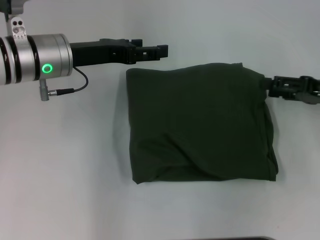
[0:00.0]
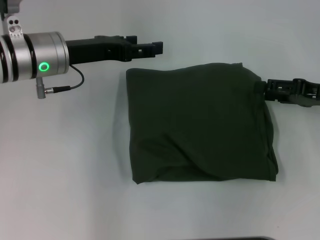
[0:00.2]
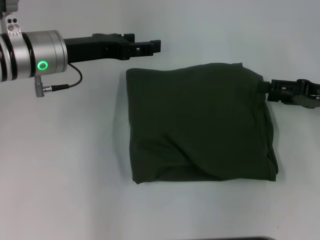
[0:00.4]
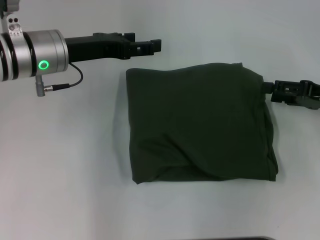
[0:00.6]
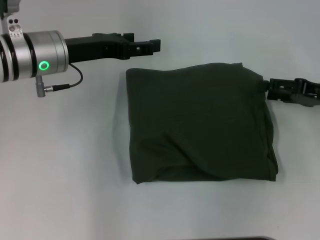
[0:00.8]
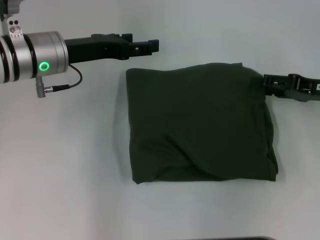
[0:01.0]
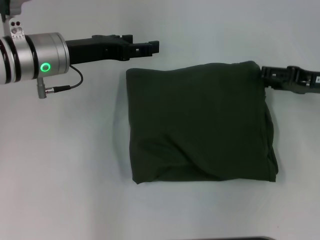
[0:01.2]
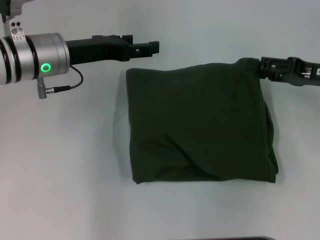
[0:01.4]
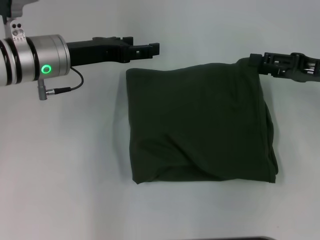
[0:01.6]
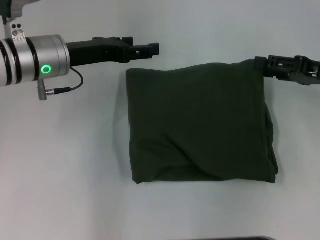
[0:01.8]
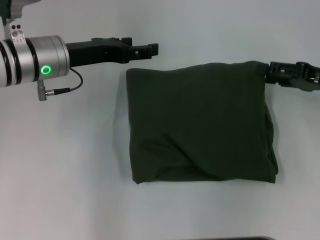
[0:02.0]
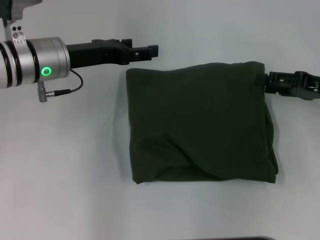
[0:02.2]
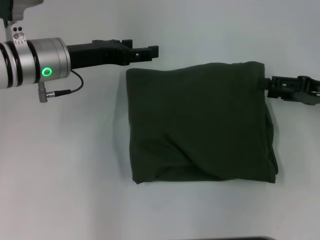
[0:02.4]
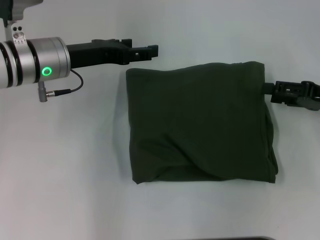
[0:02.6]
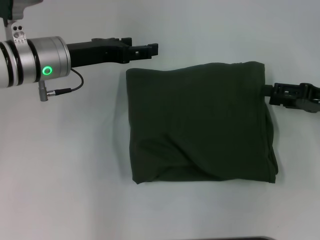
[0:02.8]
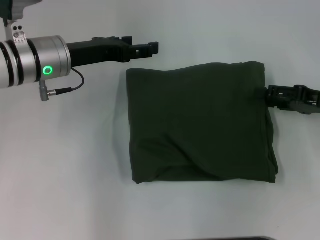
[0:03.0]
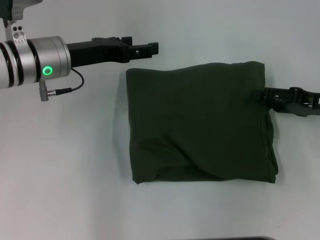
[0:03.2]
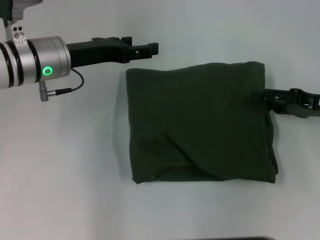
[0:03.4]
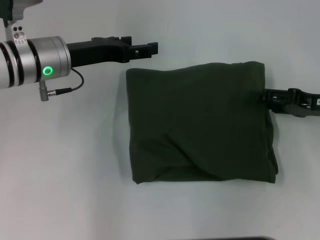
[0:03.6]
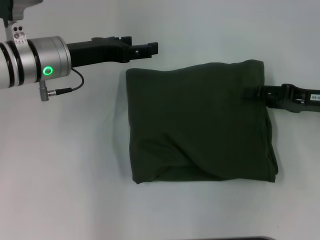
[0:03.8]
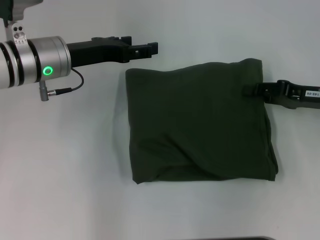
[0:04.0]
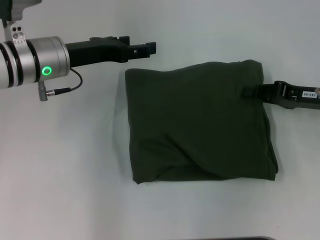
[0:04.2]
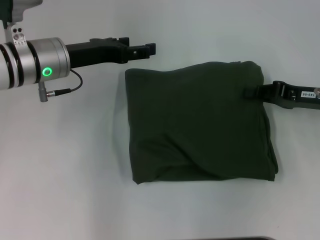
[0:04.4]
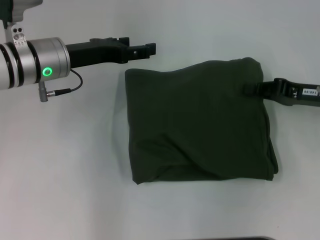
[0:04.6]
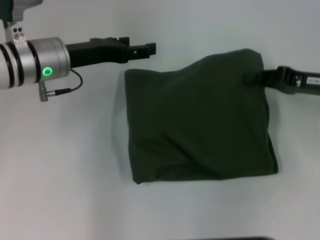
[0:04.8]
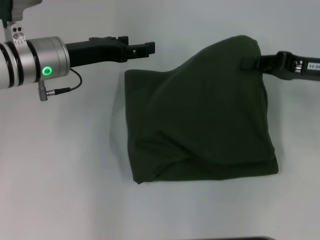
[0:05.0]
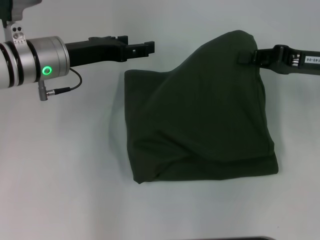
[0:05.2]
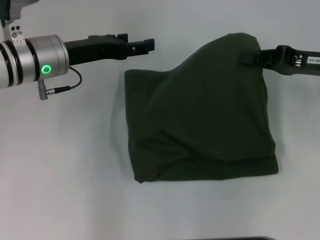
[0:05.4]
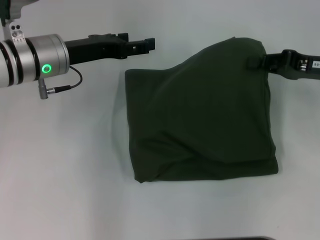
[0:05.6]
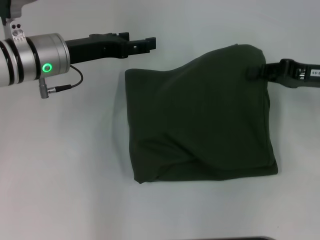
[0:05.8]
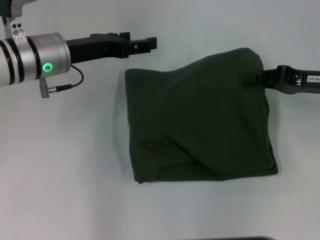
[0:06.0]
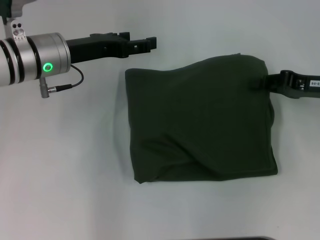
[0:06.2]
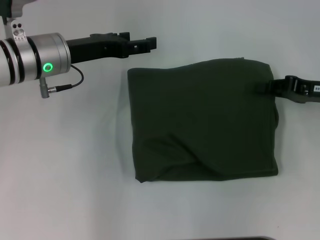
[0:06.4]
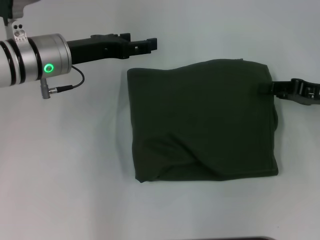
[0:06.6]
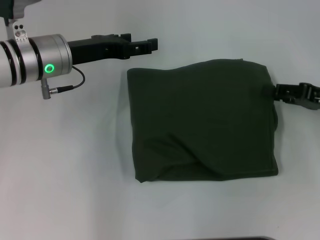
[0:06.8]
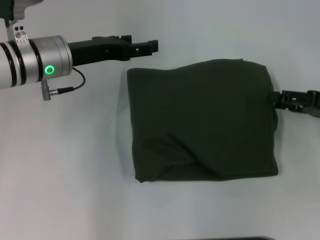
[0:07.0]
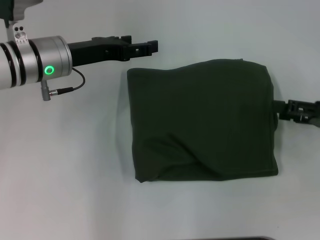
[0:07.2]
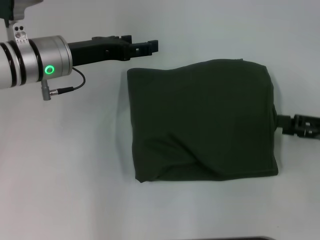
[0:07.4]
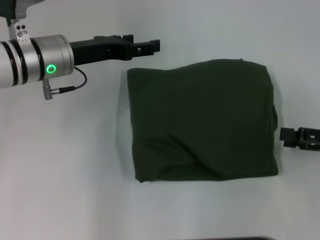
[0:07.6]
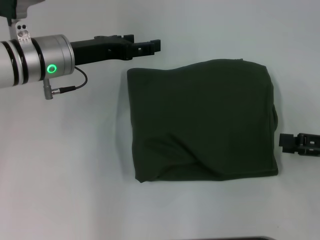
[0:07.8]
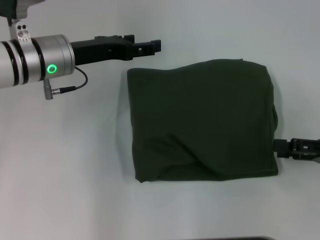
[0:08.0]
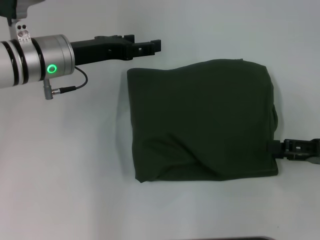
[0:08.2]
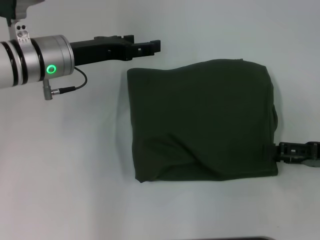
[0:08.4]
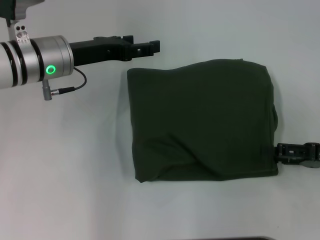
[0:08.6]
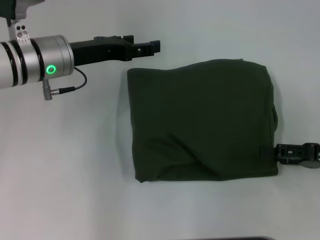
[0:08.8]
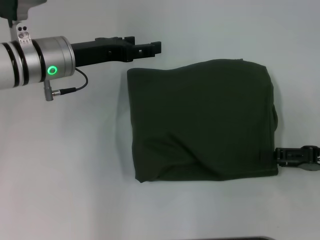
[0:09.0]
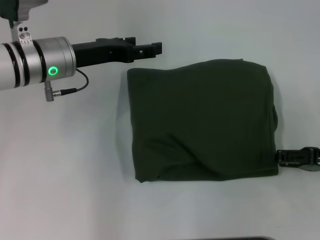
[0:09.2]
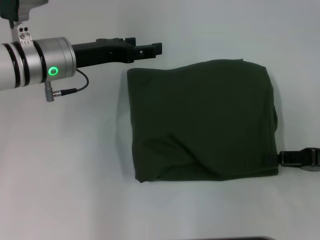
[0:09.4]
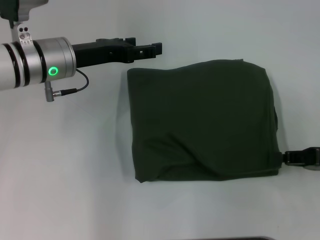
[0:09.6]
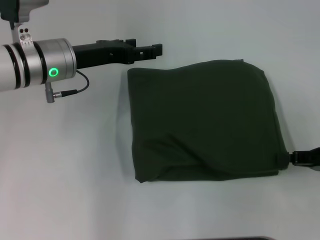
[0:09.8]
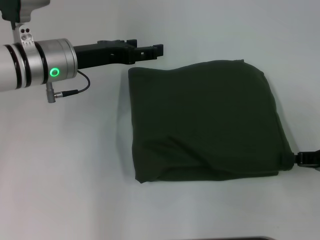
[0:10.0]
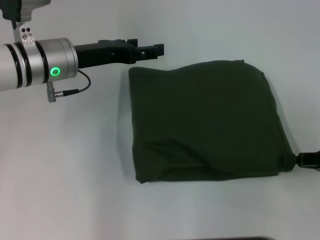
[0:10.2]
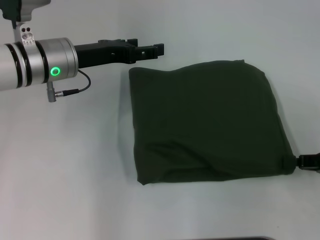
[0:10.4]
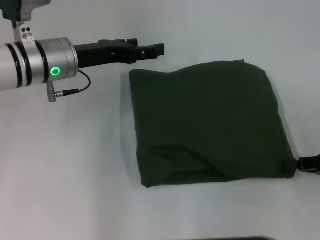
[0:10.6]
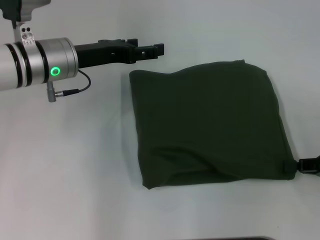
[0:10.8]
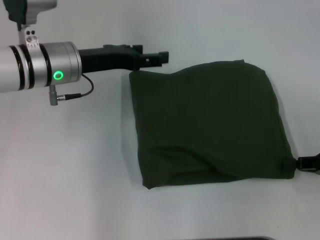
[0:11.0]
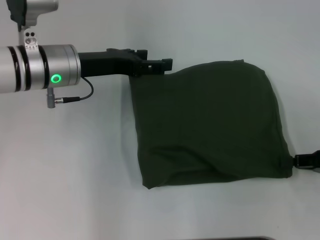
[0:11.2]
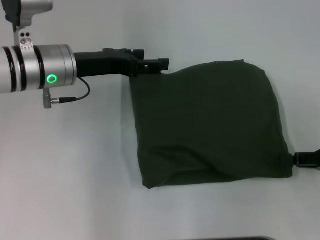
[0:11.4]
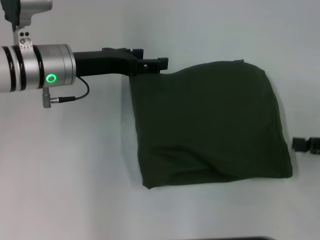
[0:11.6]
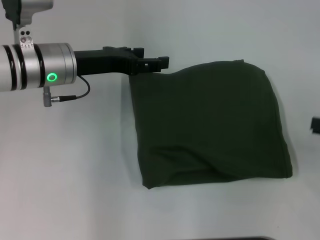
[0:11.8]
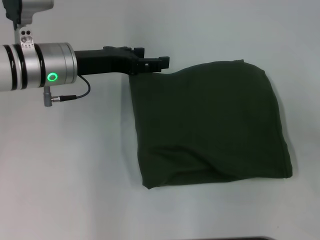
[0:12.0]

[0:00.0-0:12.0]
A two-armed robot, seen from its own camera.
0:00.0 to 0:03.0: There are only small adjustments of the grippers.
0:03.0 to 0:04.4: The right gripper closes up.
0:04.4 to 0:06.0: There are only small adjustments of the grippers.
0:06.0 to 0:07.6: The right gripper travels backward and to the right by about 10 cm, and opens.
0:07.6 to 0:09.0: The grippers stay close to where they were, moving slightly.
0:09.0 to 0:10.4: The right gripper closes its fingers.
0:10.4 to 0:12.0: The right gripper moves upward, some 5 cm, and opens its fingers.

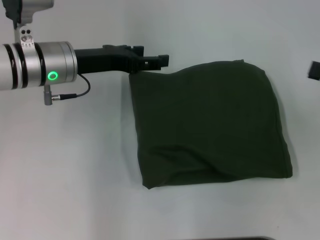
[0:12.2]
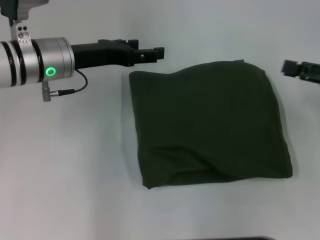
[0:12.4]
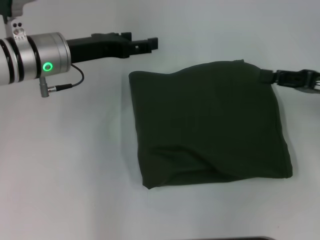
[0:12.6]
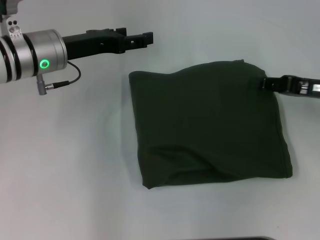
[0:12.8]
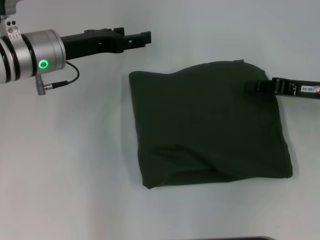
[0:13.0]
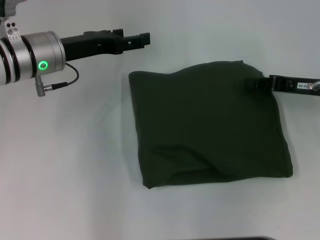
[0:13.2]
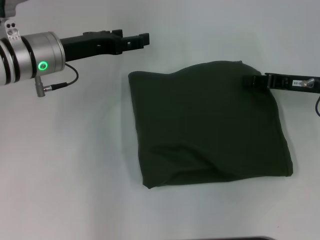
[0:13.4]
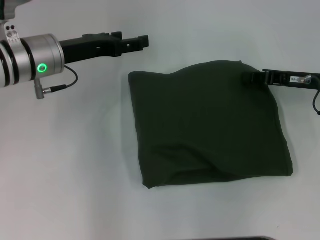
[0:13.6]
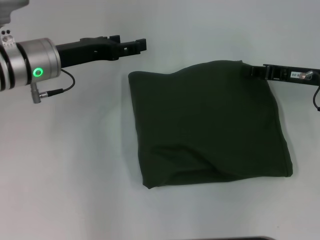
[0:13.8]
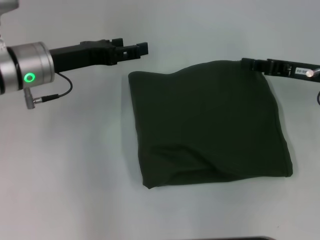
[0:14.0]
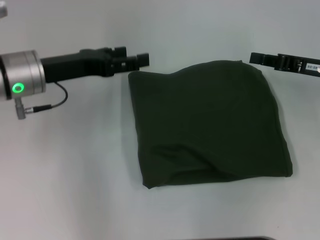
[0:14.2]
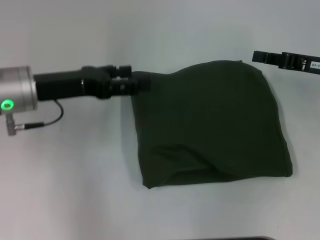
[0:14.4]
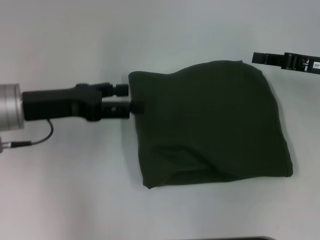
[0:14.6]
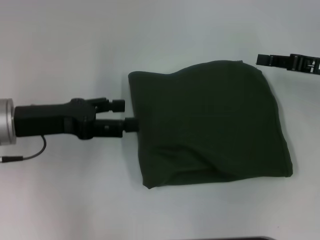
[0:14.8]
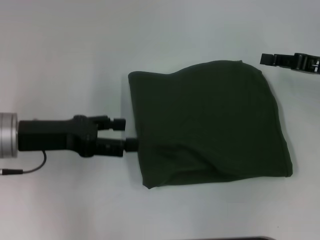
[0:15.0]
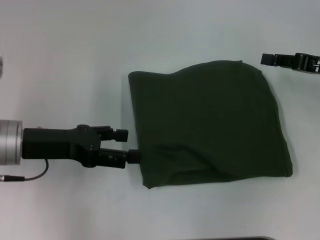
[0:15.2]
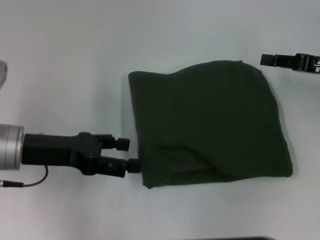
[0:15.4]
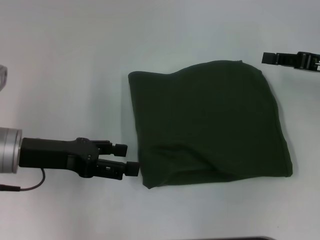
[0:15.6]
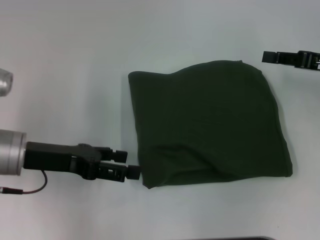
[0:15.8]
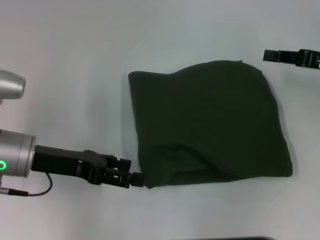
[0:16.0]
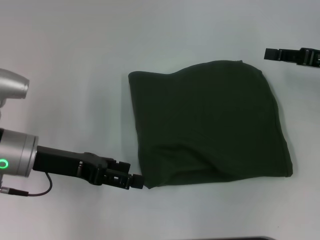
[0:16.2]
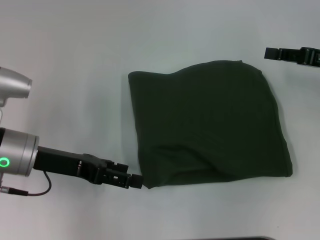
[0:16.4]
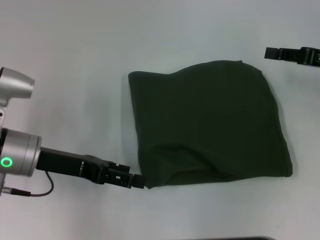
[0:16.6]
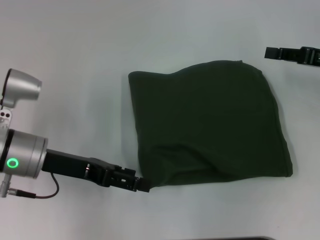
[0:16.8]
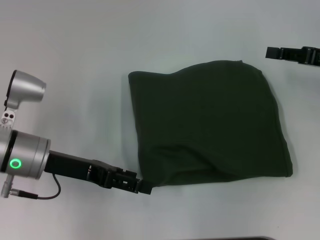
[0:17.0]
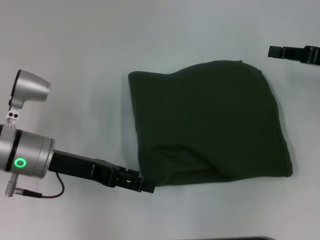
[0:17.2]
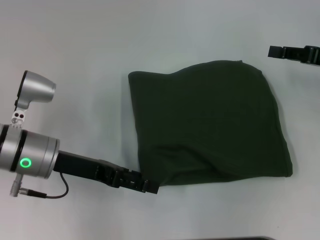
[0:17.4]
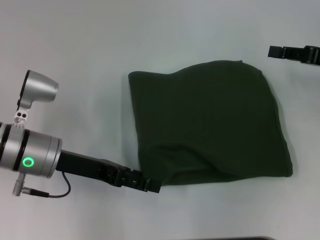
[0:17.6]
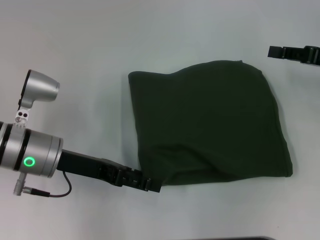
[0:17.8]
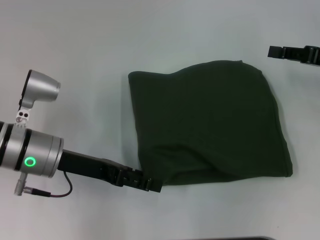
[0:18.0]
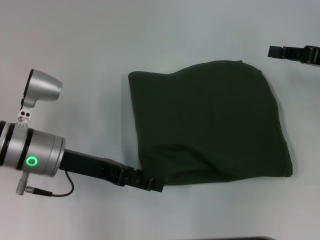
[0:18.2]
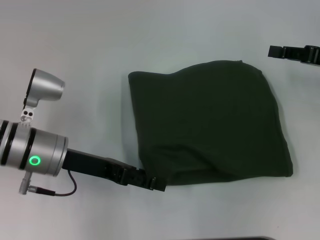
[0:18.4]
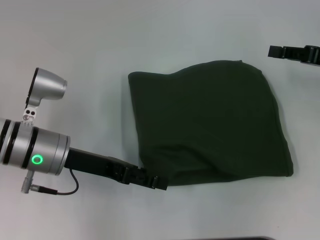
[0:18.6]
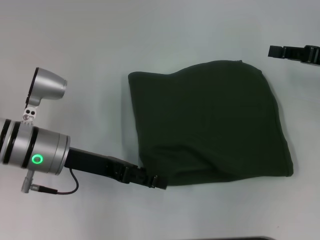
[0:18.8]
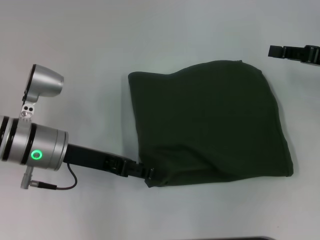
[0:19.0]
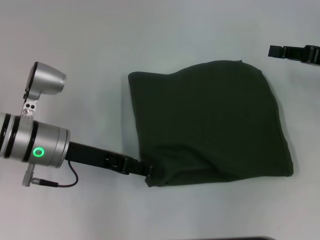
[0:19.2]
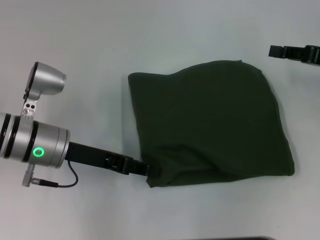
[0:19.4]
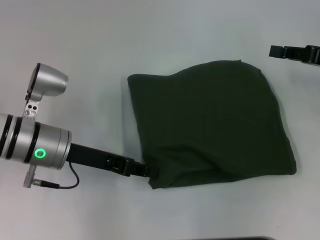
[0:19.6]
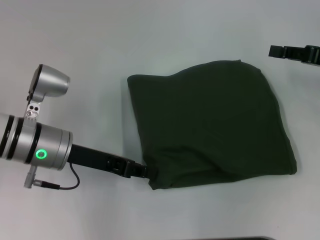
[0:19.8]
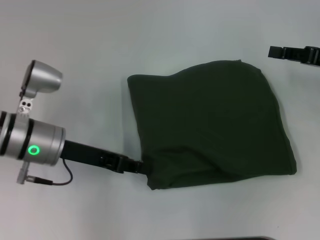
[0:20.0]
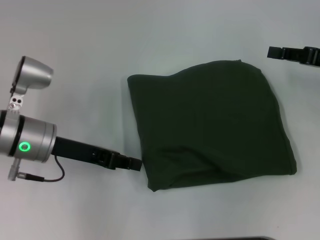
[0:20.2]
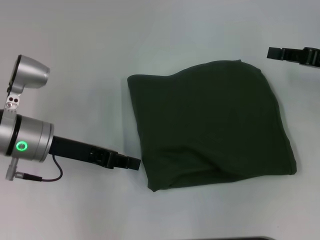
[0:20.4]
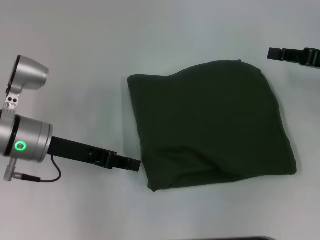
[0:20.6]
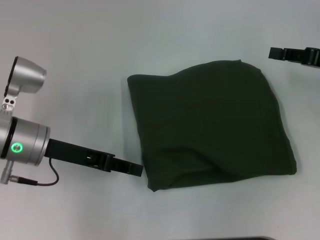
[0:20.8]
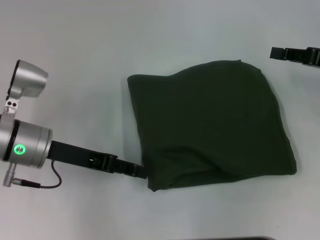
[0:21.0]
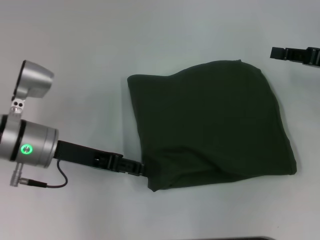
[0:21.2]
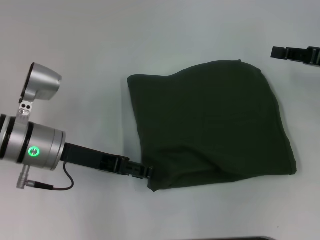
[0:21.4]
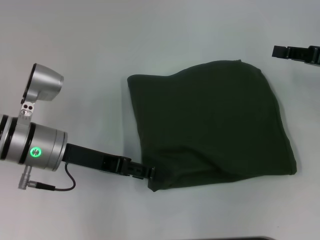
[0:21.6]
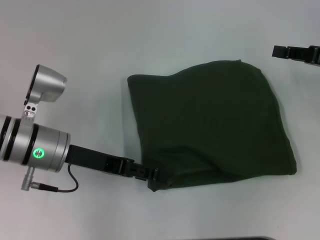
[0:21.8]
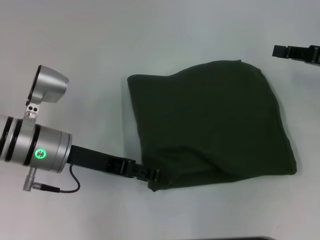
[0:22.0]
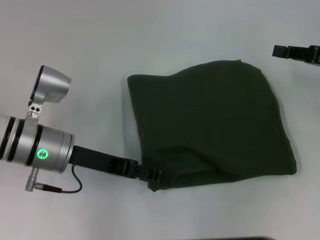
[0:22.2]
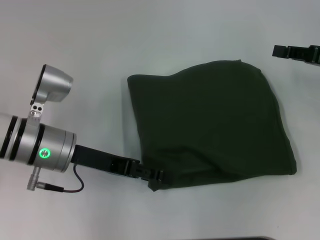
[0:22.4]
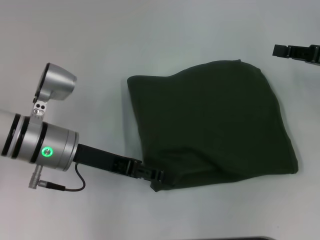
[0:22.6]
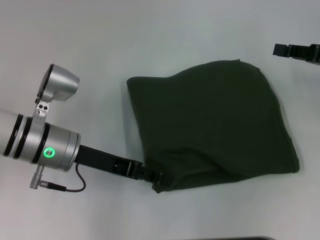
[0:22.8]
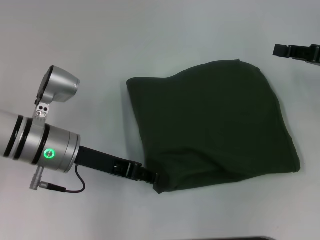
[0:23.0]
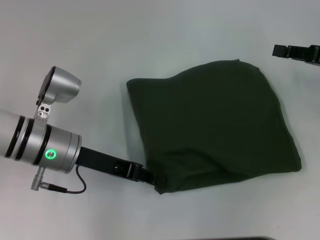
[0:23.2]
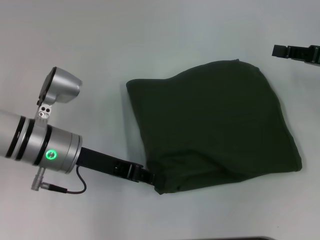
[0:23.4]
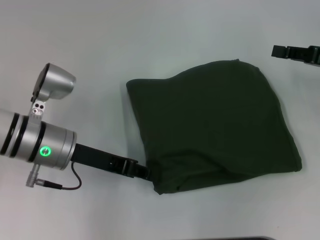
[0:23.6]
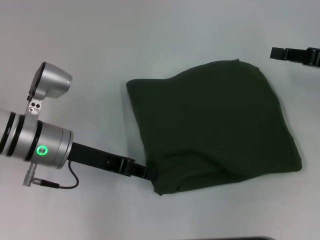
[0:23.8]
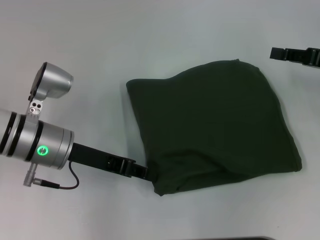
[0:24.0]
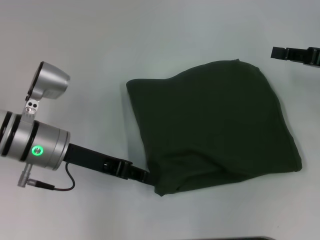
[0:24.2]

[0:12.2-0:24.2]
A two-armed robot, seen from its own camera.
0:12.2 to 0:13.8: The right gripper moves to the left and forward, about 10 cm, and closes.
0:13.8 to 0:15.2: The left gripper travels backward by some 10 cm.
0:16.6 to 0:18.2: The grippers make only small movements.
0:18.2 to 0:19.8: The left gripper closes.
0:19.8 to 0:21.2: The left gripper opens up.
0:21.2 to 0:22.6: The left gripper opens its fingers.
0:22.6 to 0:24.2: The left gripper closes up.
